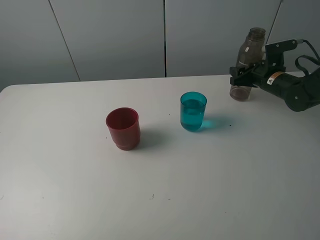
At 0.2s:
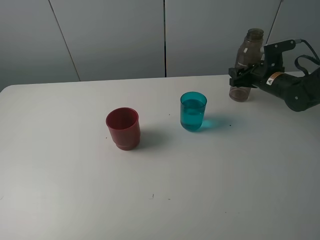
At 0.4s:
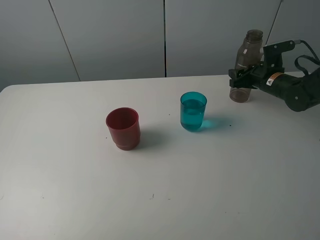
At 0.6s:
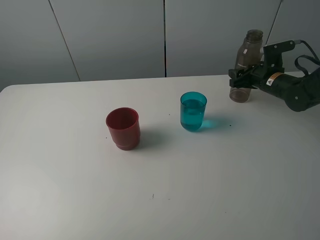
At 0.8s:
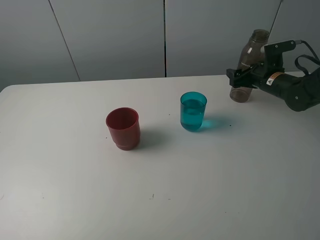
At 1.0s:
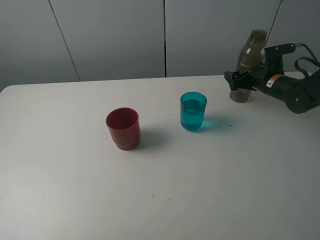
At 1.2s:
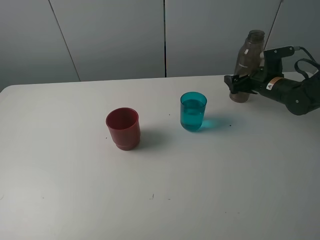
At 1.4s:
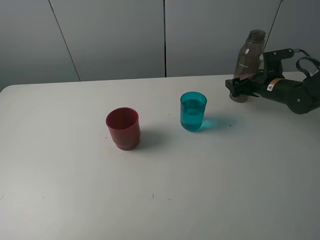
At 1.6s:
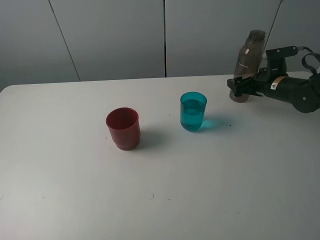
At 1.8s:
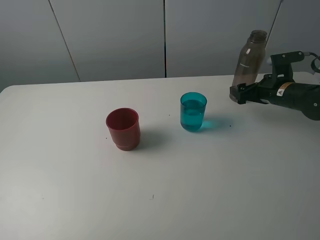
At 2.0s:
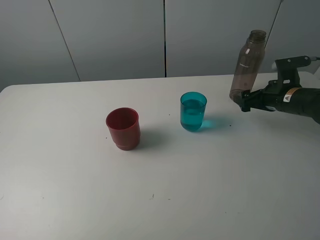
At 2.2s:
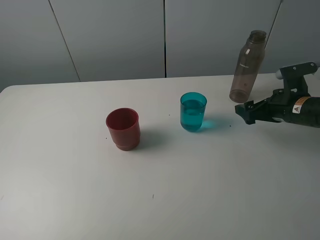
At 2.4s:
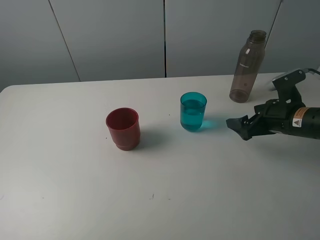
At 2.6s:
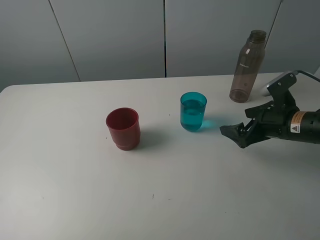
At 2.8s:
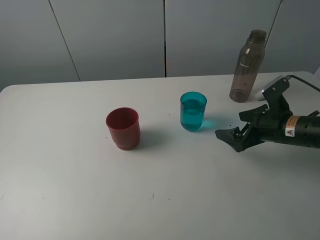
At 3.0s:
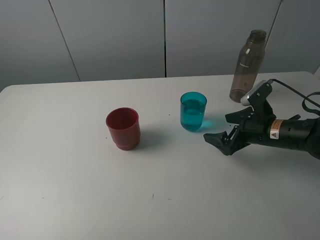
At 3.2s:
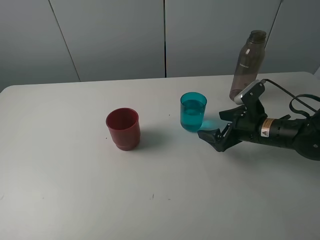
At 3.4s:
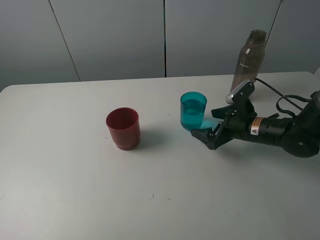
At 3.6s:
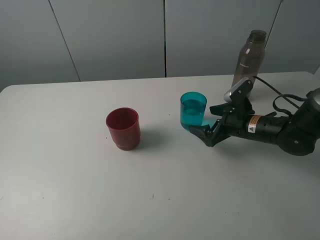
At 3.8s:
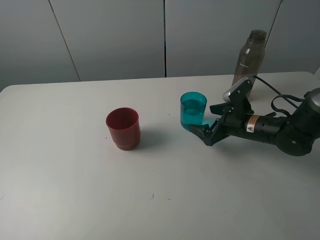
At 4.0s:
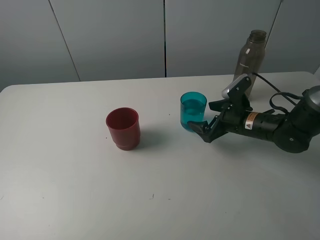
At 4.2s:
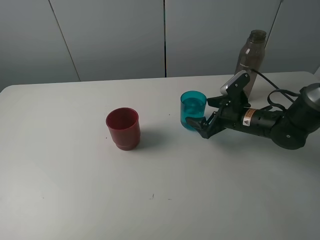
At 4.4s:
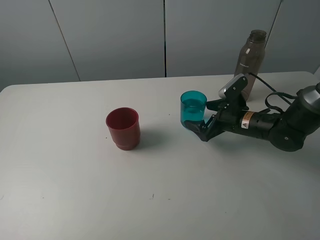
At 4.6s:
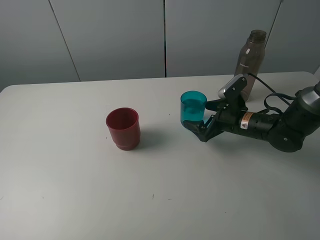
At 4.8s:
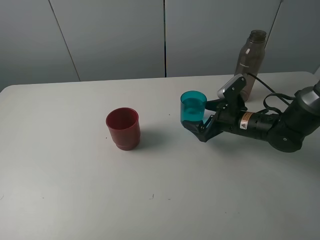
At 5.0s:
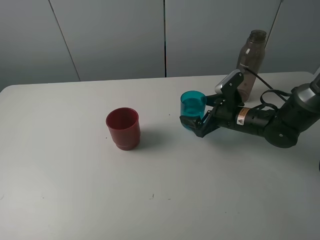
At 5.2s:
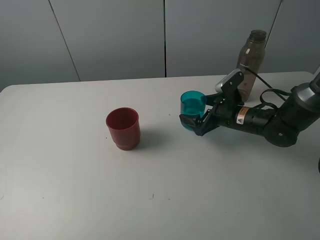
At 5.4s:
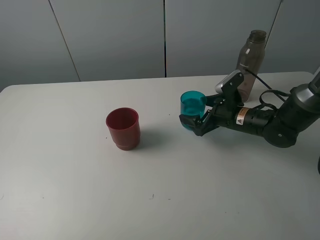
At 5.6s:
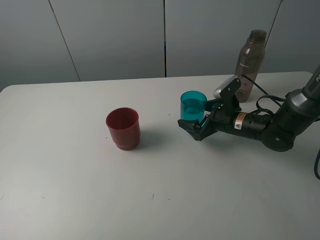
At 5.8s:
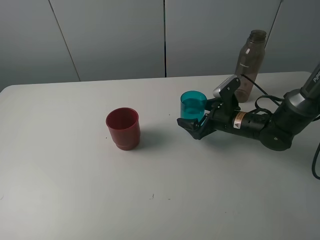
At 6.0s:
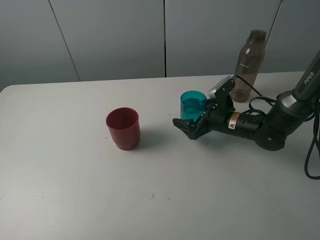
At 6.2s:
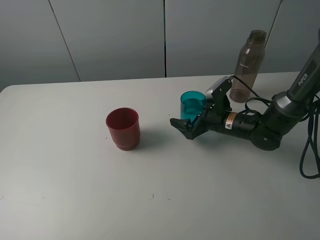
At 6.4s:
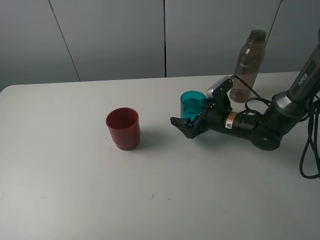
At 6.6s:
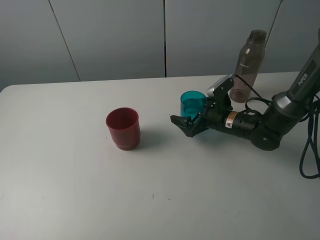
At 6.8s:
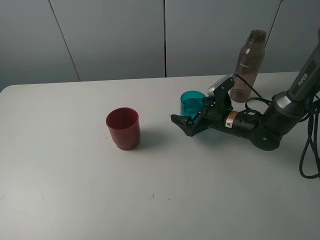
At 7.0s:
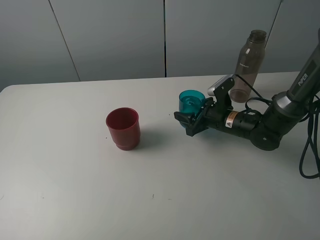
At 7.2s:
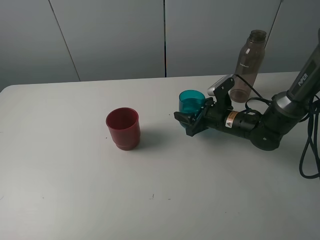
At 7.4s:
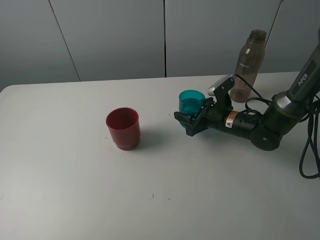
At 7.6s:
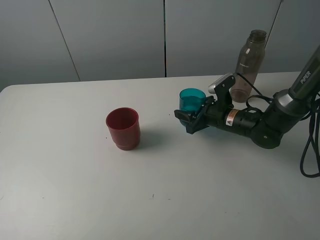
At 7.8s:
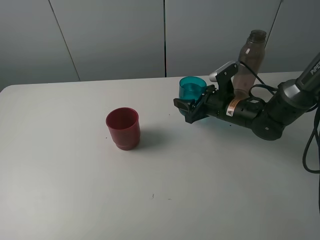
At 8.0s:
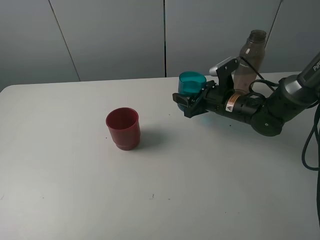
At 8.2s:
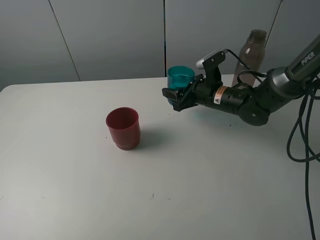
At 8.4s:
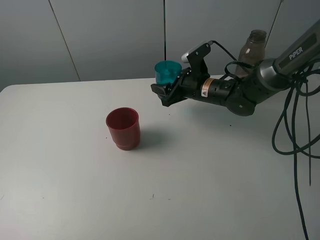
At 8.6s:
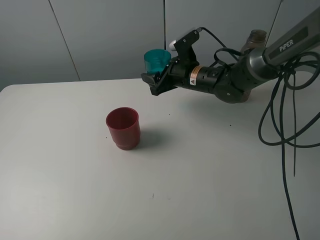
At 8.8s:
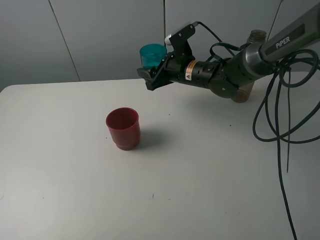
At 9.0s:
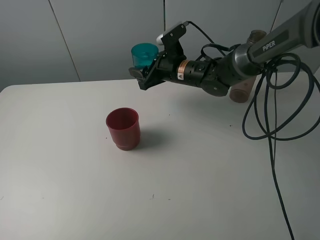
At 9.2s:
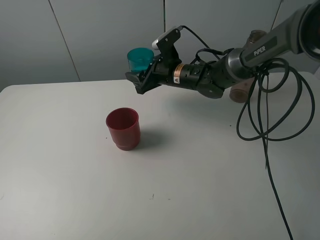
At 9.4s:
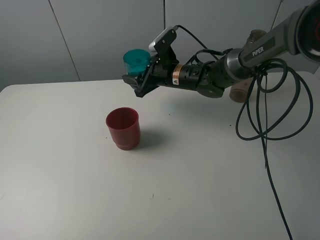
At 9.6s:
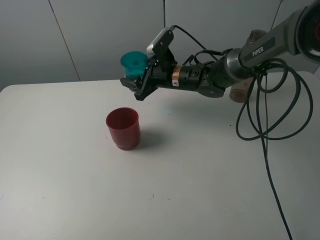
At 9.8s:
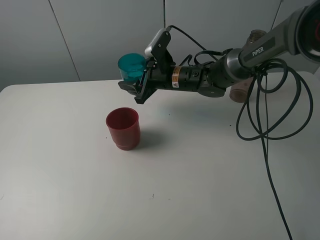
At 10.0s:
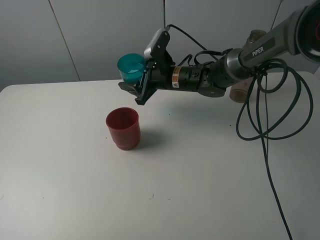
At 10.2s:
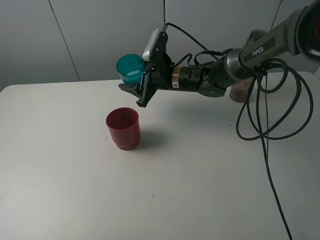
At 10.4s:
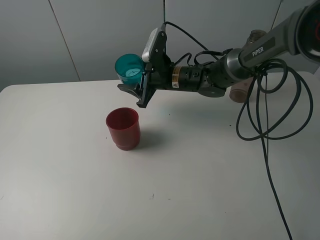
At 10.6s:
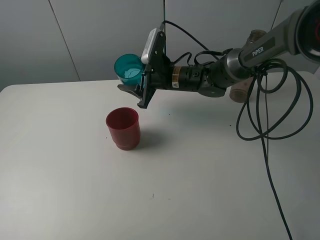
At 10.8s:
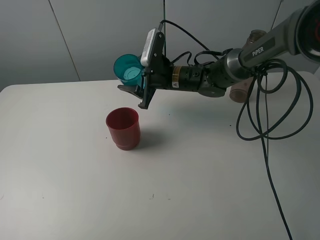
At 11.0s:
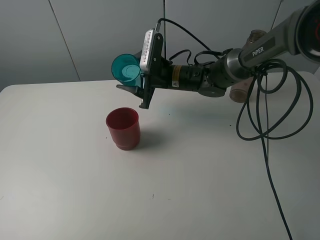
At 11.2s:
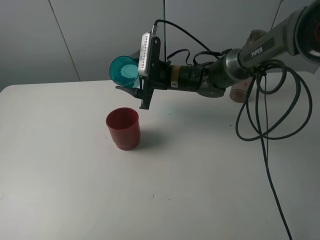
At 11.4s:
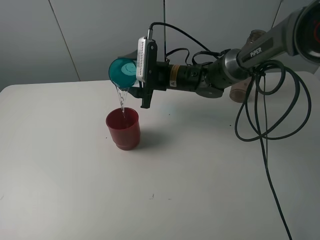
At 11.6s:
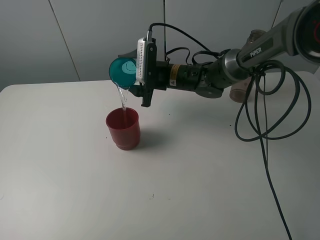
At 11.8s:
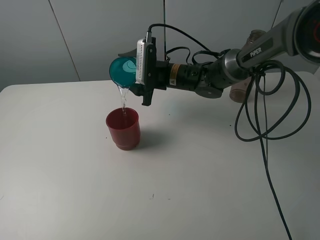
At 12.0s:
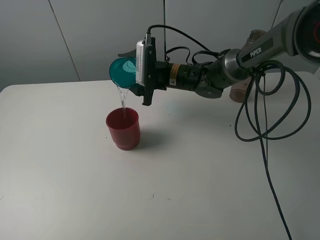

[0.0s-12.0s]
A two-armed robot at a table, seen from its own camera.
Task of the whole recording: pick up the bottle and pour water into the cup, then pick up the cup containing water and pour it into another cup.
Step, 1.0s to 7.0s: Grasp the blue cup with the right gripper.
0.0s to 1.6s: The right gripper opens up.
1.6s to 3.0s: The right gripper heads backward and to the left, covering roughly 15 cm.
3.0s to 4.4s: The right gripper shifts by approximately 5 cm.
4.4s to 6.0s: The grippers move only a little.
6.0s to 7.6s: The right gripper closes its fingers.
7.6s to 9.0s: The right gripper moves to the left, upward and forward, approximately 15 cm.

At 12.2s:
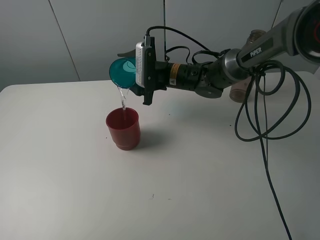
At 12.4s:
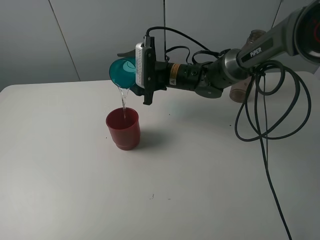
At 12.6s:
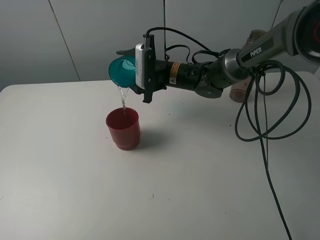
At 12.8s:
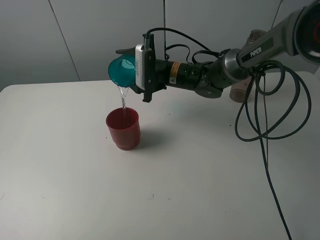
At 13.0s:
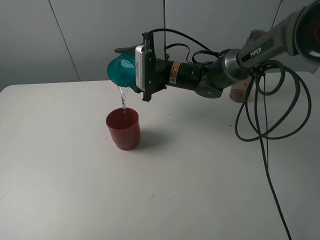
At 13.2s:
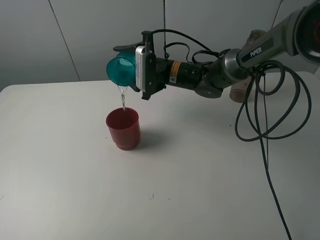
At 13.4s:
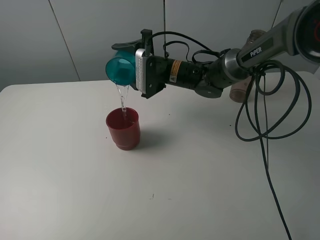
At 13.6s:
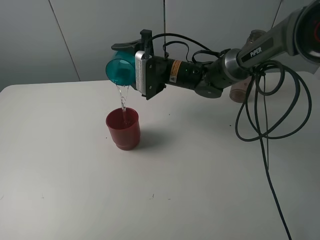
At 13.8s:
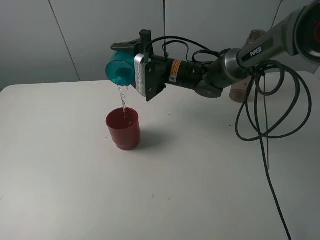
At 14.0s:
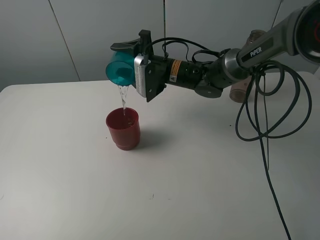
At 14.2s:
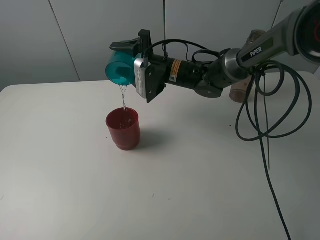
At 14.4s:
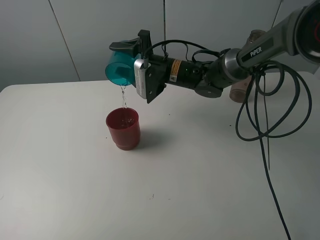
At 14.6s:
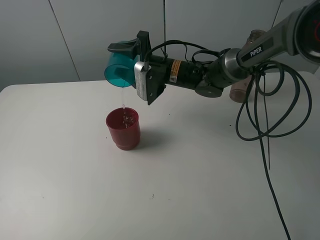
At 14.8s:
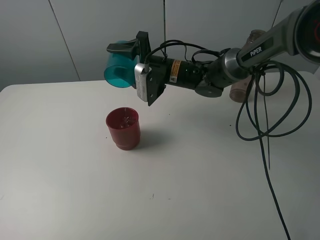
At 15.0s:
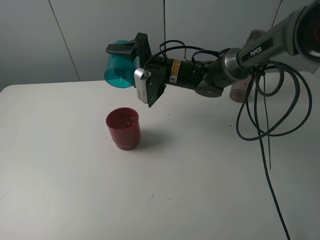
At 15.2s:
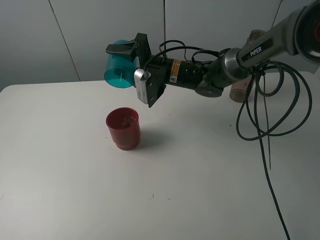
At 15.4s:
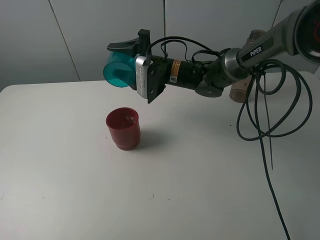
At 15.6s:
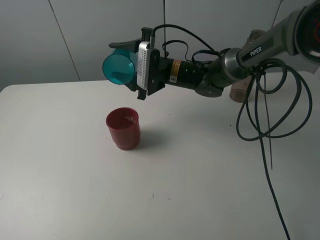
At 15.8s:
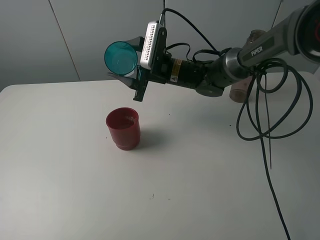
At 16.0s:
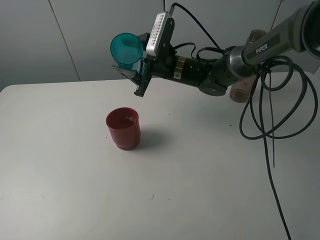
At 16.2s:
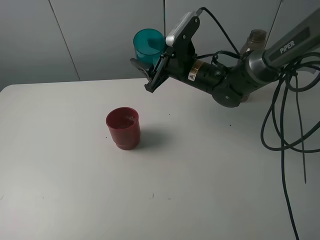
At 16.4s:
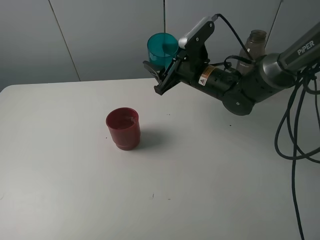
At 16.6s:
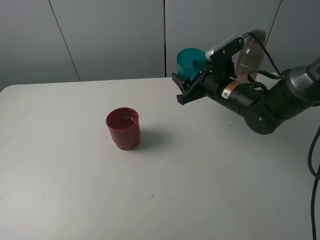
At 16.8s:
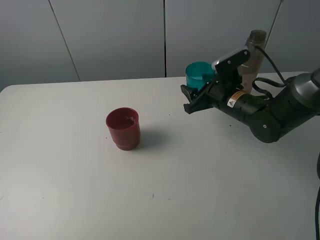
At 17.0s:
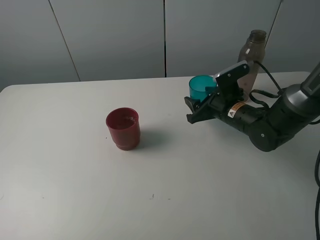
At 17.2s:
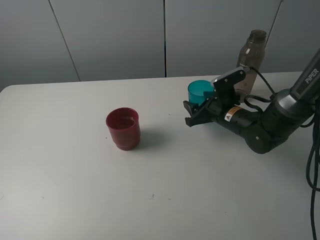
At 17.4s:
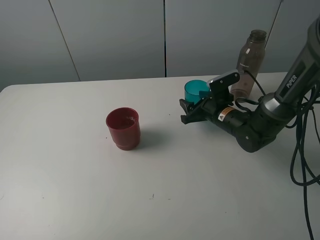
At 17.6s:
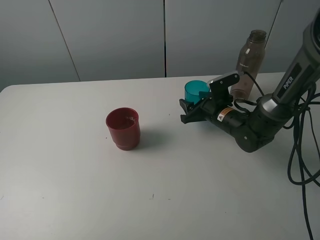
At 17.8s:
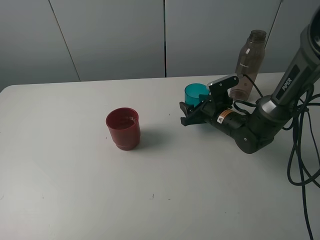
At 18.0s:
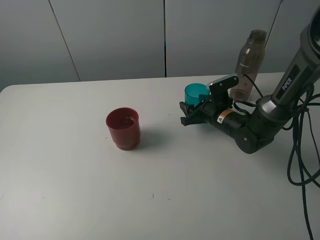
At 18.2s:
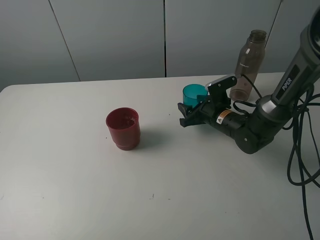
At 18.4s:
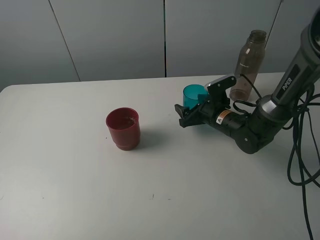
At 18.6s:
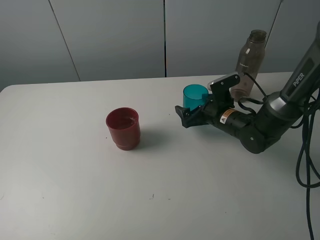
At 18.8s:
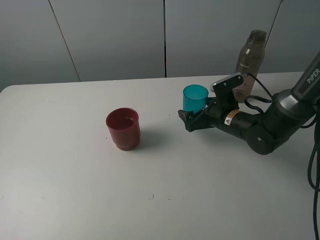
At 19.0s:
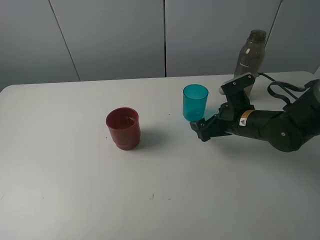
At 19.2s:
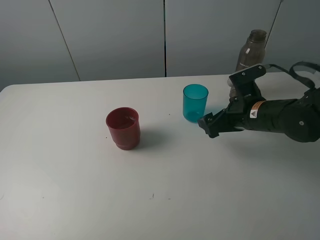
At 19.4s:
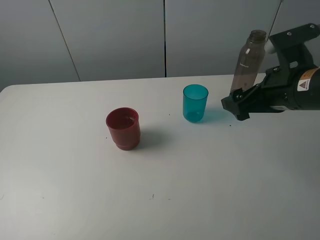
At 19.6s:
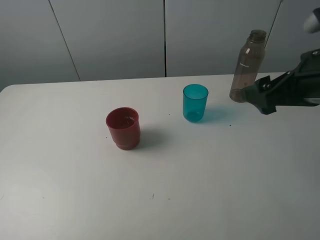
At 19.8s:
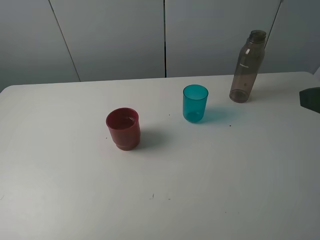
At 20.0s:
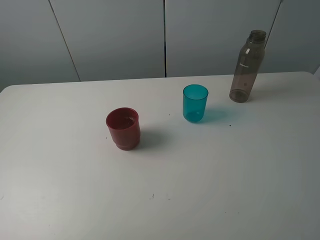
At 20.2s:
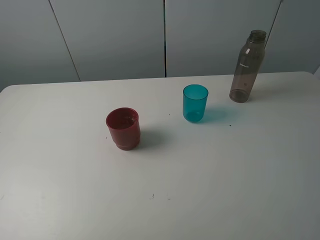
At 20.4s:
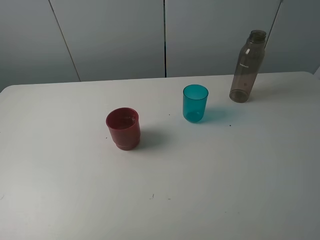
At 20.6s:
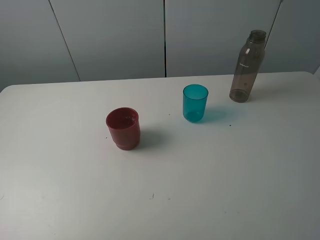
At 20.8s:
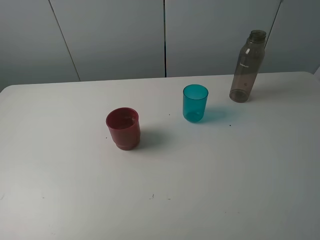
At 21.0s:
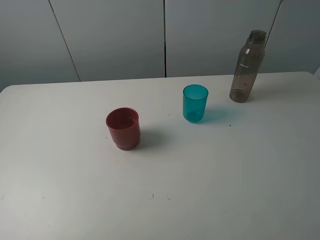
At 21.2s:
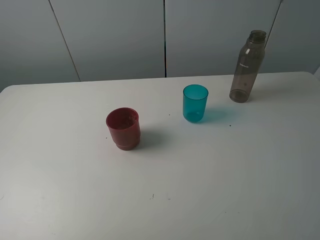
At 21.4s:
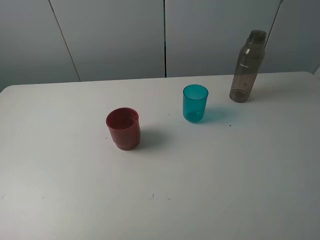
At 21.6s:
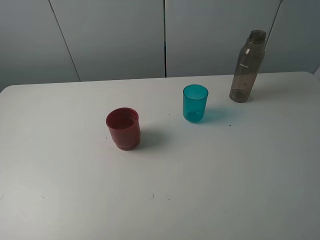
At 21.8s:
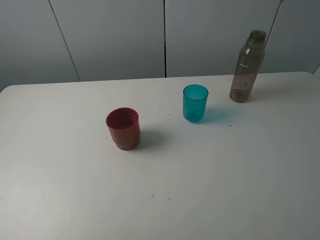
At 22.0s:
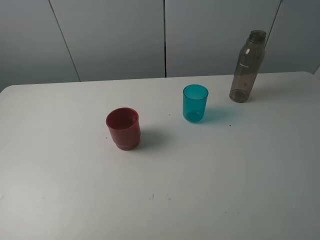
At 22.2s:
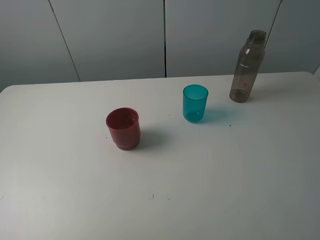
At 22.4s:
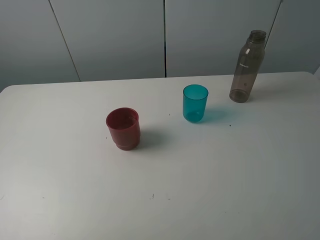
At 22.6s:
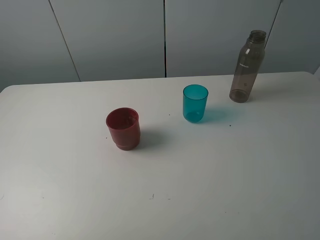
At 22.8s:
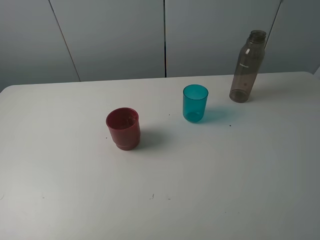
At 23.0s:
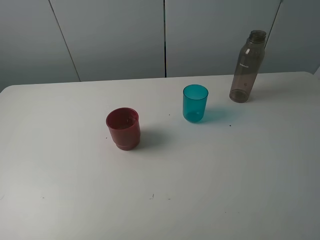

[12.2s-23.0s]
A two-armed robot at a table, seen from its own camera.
Task of the whole recording: pick up the bottle and pour water into the cup, then pick up the cup containing water and pour it into another cup.
Step, 12.2s to 15.4s: Pour water from blue cup to red cup with the right gripper.
Step, 15.6s to 18.4s: Place the blue cup with the right gripper.
13.8s to 15.2s: There are only small adjustments of the grippers.
15.2s to 16.8s: The right gripper heads to the right and backward, covering some 15 cm.
16.8s to 18.4s: The right gripper shifts about 5 cm downward, and opens up.
18.4s to 20.0s: The right gripper shifts roughly 40 cm backward, upward and to the right.
21.4s to 23.0s: Both grippers stay about where they are.
